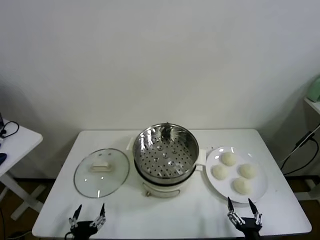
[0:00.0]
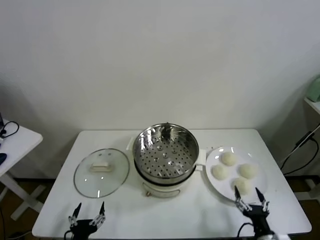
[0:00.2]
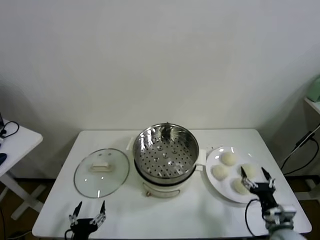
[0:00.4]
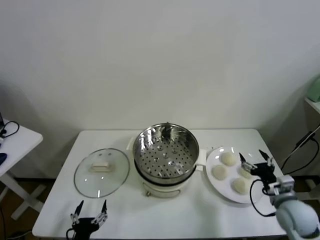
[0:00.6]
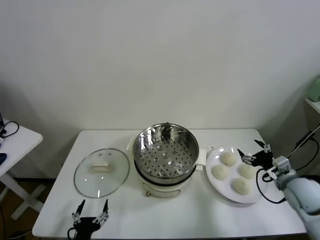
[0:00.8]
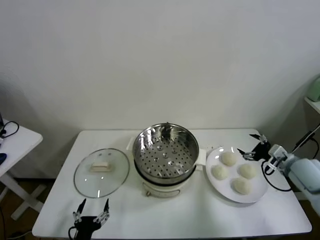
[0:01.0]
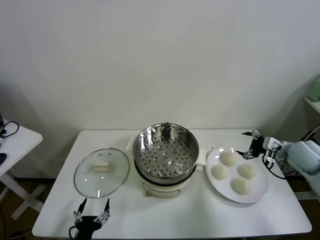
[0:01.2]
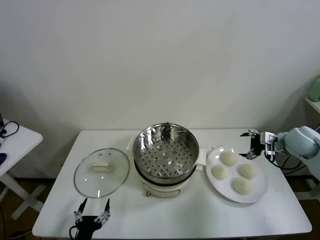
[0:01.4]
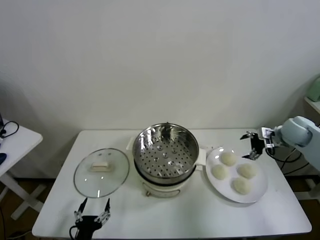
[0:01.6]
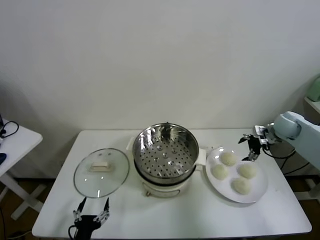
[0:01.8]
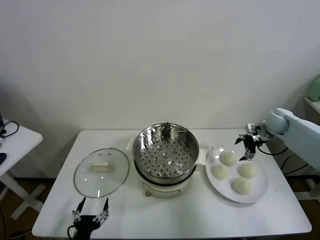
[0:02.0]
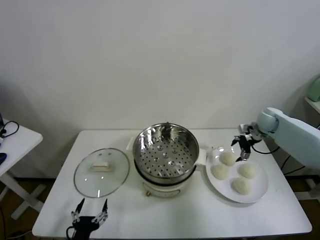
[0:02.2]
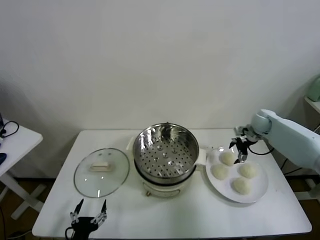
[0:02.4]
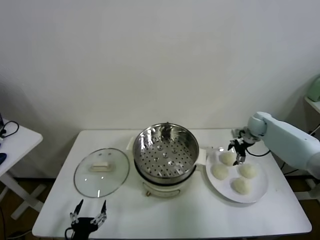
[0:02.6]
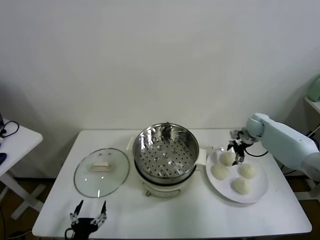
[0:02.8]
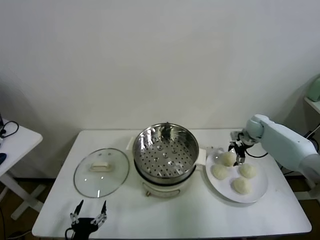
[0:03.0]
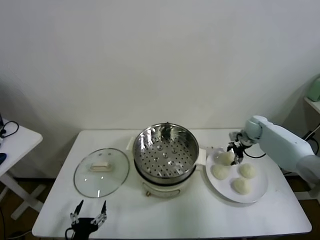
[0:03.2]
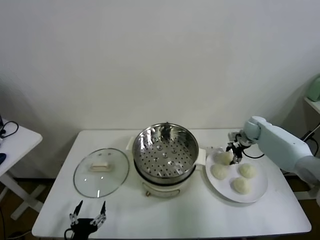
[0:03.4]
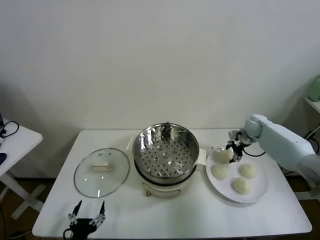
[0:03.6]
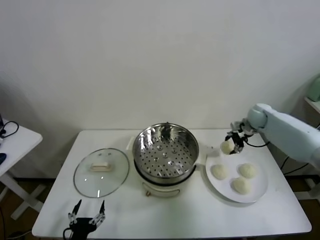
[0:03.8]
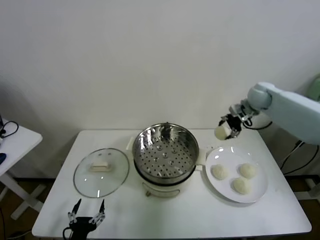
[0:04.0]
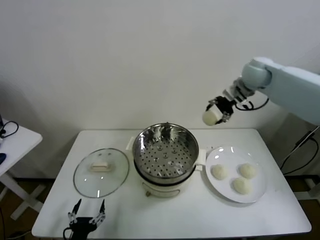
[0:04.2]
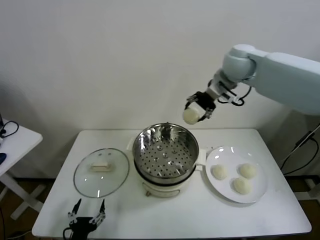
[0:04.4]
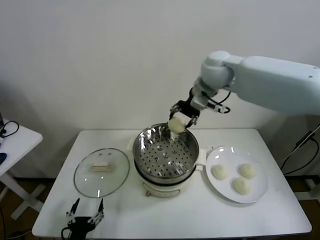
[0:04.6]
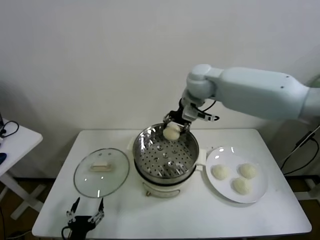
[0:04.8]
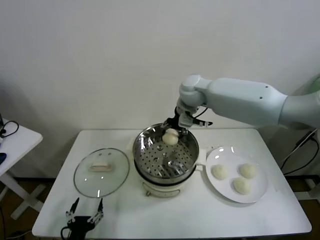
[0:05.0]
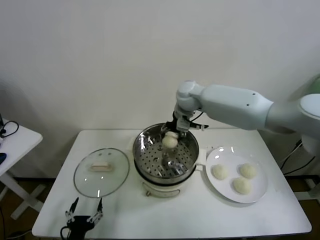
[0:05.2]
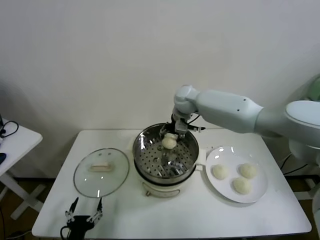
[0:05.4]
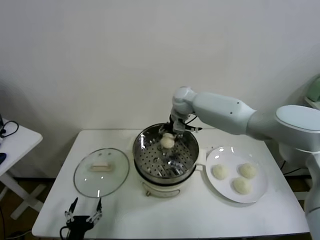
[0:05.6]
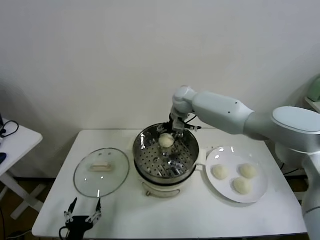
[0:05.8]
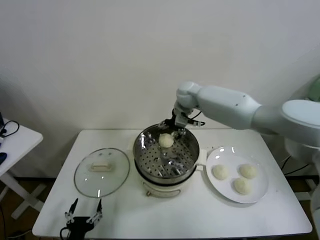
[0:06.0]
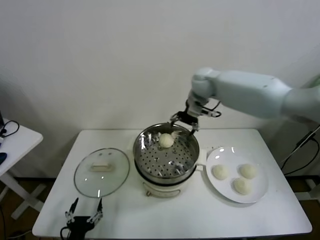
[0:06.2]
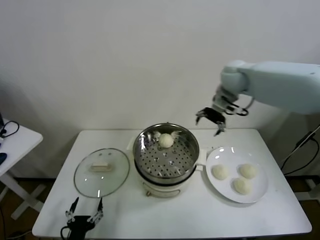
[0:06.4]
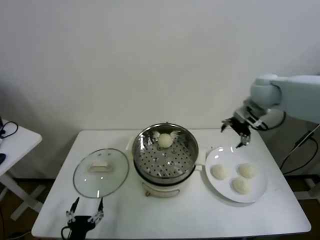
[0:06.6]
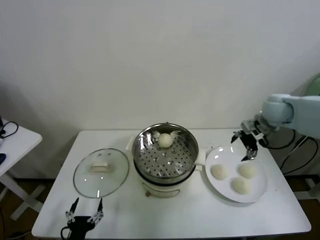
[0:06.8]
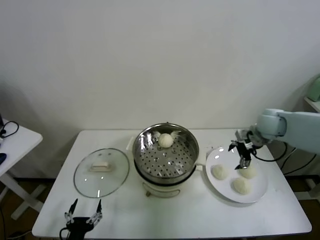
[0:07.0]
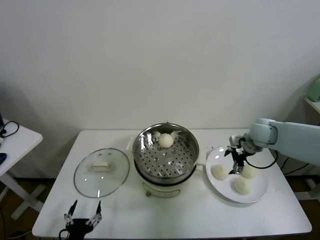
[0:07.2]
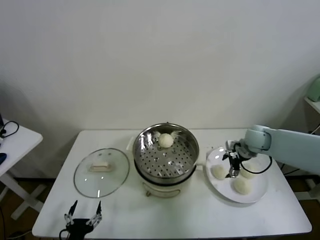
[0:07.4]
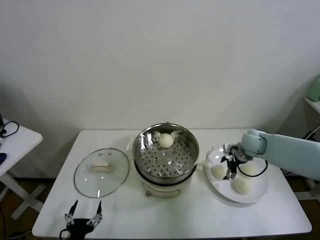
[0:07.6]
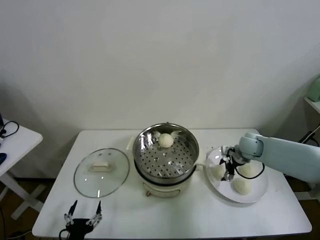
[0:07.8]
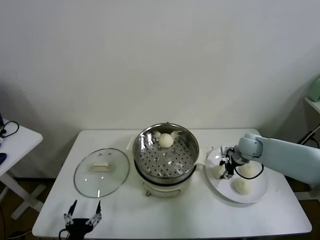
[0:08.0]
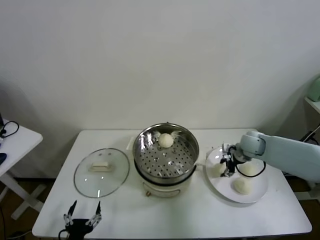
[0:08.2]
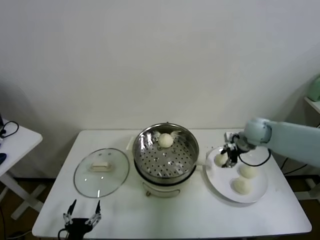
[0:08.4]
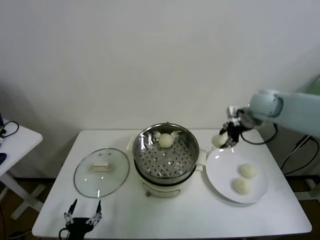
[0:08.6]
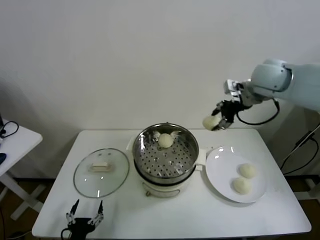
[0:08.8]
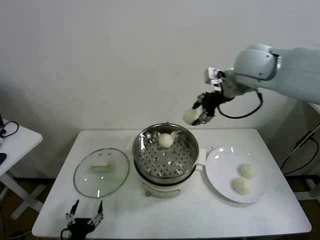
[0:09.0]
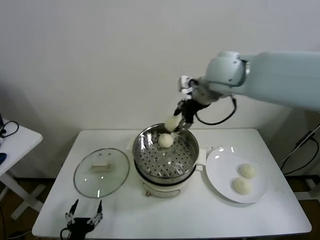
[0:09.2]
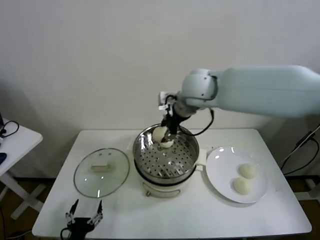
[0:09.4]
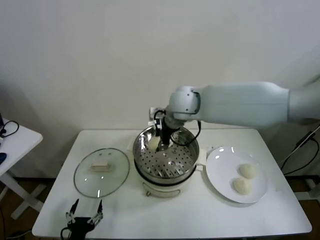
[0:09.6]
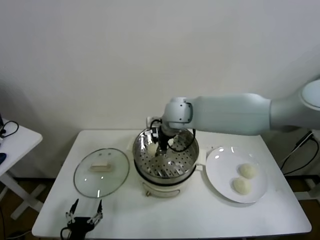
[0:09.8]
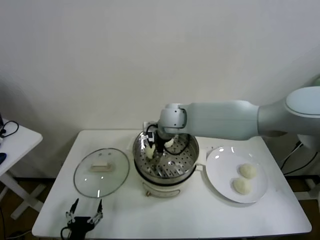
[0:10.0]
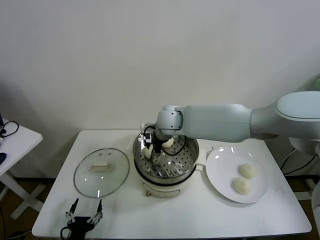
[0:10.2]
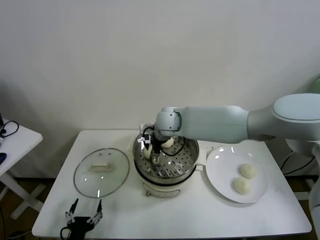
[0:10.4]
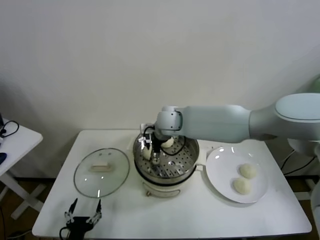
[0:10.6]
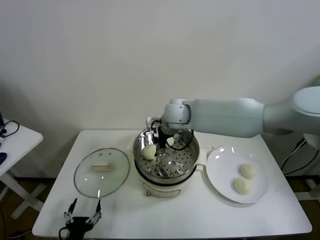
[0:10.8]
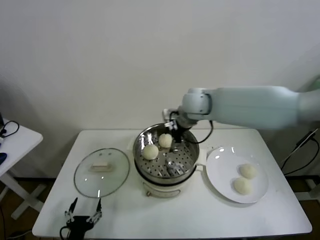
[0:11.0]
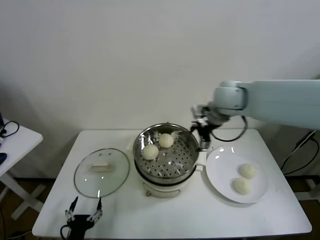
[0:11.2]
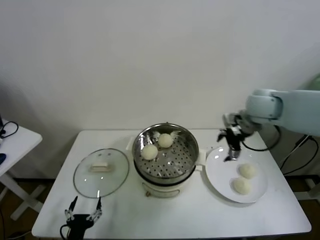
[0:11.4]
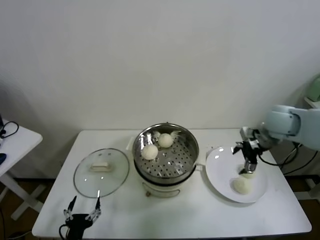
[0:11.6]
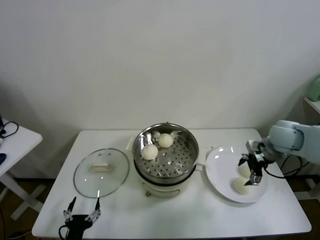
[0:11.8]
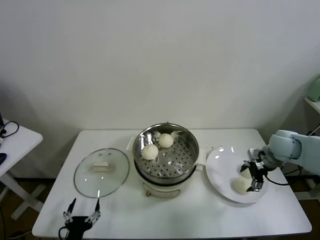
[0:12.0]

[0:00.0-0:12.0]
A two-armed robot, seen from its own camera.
Task of the whole recording: take steamed baozi put them in steamer.
Step, 0:00.0 to 0:03.4: Grasp the baozi in the plate with right gripper.
Step, 0:03.6 to 0:06.0: Place the baozi on the steamer with right gripper.
Step, 0:06.2 to 0:08.0: Grasp the baozi in the plate with right gripper.
Step, 0:08.2 to 0:10.6: Place the baozi on the steamer with right gripper.
0:01.6 to 0:03.0: The right gripper is displaced forward, downward and to the left by some 15 cm.
0:03.0 to 0:04.4: The right gripper shifts some 35 cm upward and to the left, and closes its fingers.
0:04.4 to 0:06.0: The right gripper heads downward, to the left and forward, covering some 15 cm, and opens up.
0:06.0 to 0:07.6: The right gripper is displaced to the right, downward and backward by approximately 30 cm.
0:07.6 to 0:09.0: The right gripper goes about 35 cm upward and to the left, and closes its fingers.
0:09.0 to 0:10.4: The right gripper shifts approximately 25 cm downward and to the left.
0:10.4 to 0:12.0: The right gripper goes some 40 cm to the right, and opens.

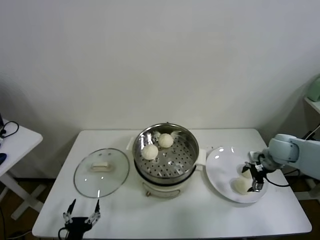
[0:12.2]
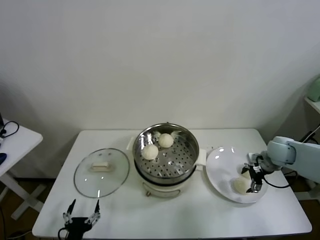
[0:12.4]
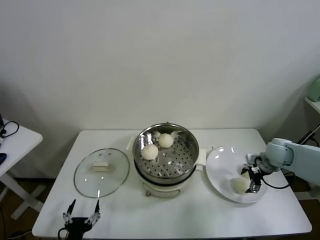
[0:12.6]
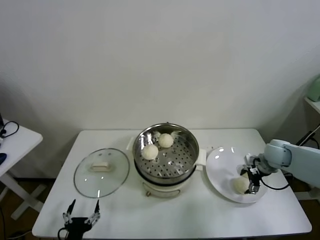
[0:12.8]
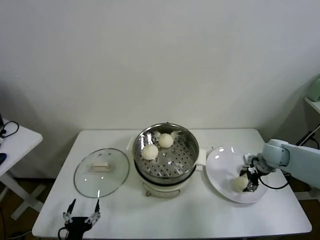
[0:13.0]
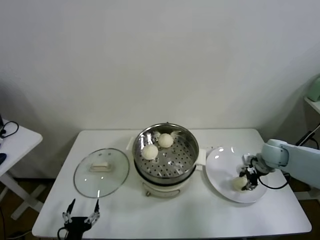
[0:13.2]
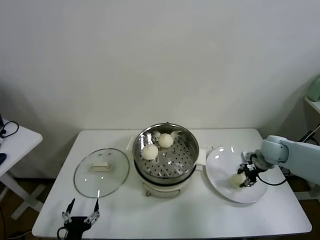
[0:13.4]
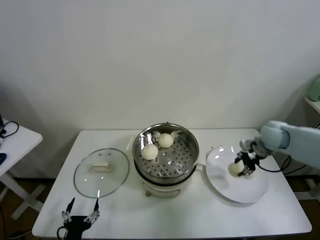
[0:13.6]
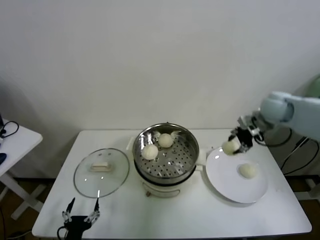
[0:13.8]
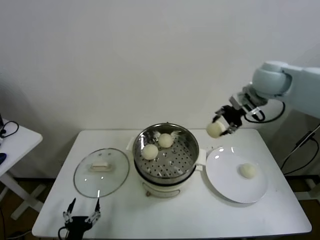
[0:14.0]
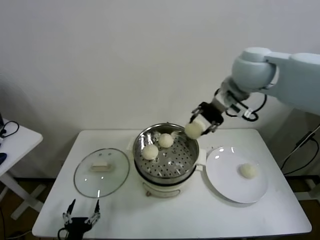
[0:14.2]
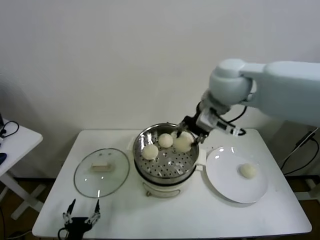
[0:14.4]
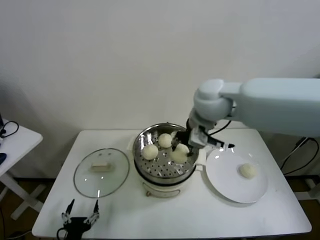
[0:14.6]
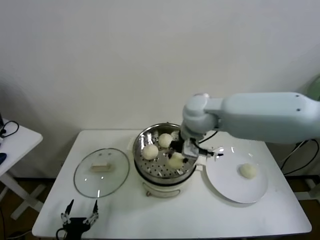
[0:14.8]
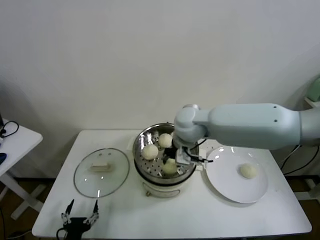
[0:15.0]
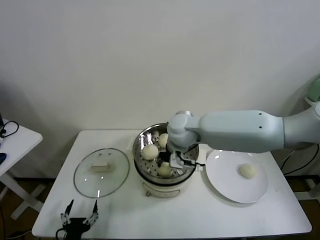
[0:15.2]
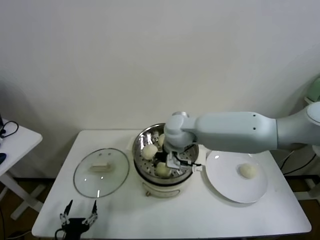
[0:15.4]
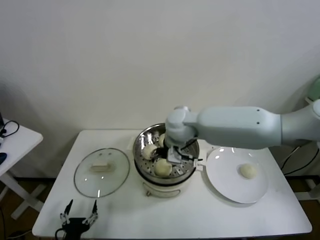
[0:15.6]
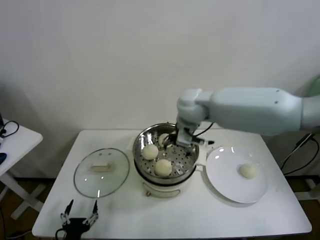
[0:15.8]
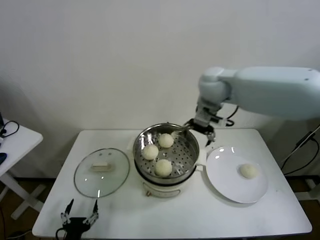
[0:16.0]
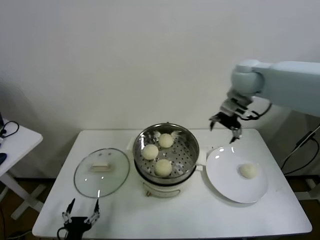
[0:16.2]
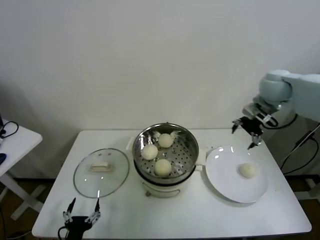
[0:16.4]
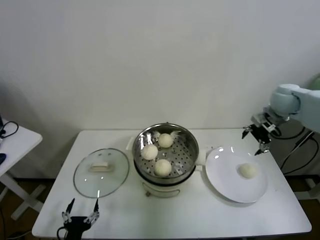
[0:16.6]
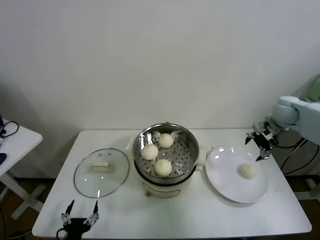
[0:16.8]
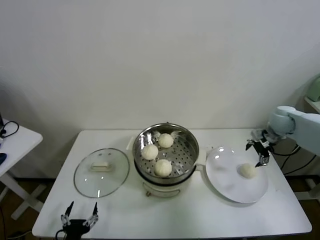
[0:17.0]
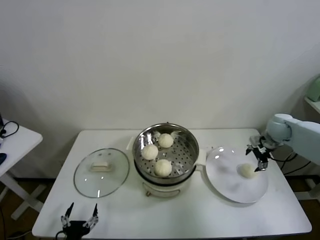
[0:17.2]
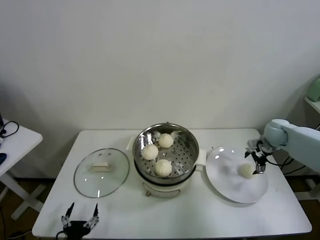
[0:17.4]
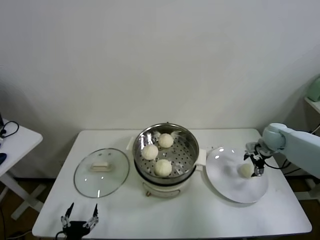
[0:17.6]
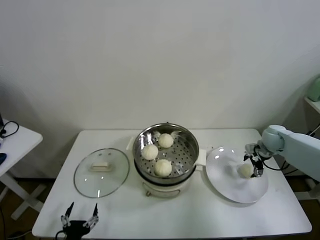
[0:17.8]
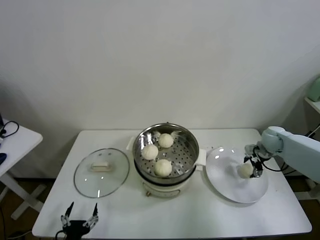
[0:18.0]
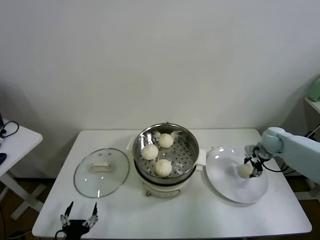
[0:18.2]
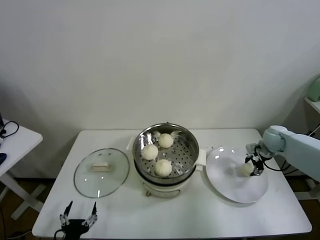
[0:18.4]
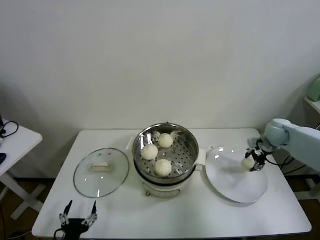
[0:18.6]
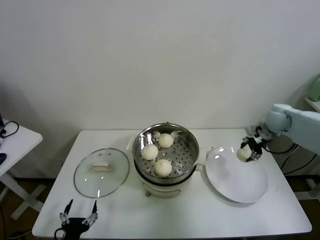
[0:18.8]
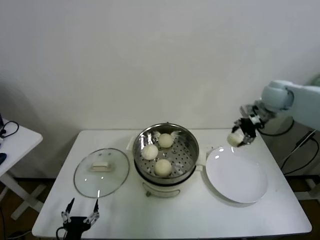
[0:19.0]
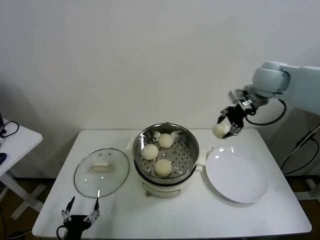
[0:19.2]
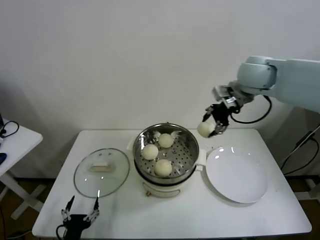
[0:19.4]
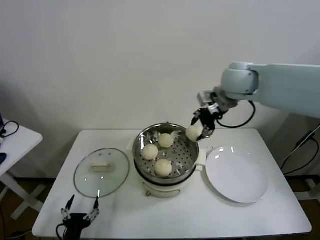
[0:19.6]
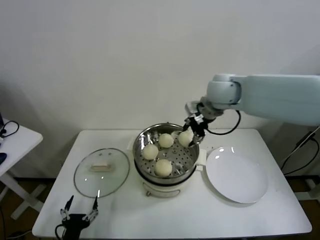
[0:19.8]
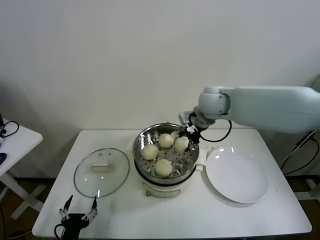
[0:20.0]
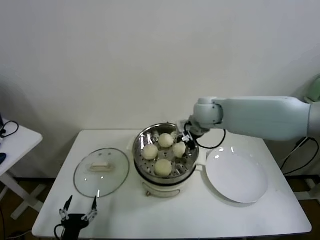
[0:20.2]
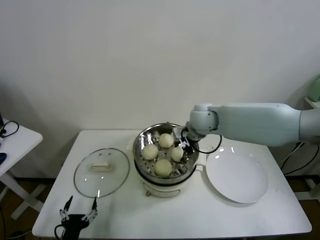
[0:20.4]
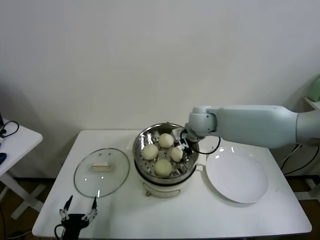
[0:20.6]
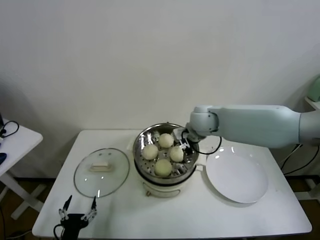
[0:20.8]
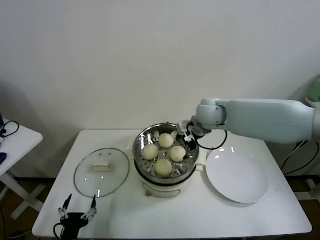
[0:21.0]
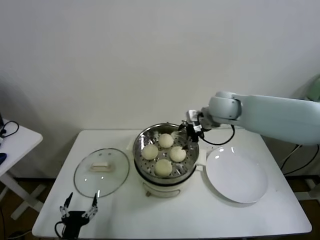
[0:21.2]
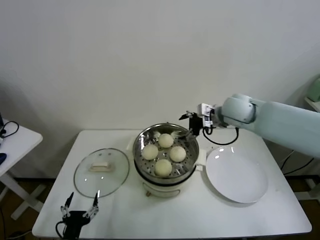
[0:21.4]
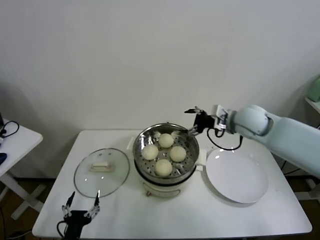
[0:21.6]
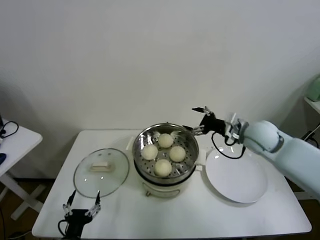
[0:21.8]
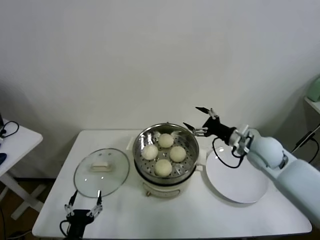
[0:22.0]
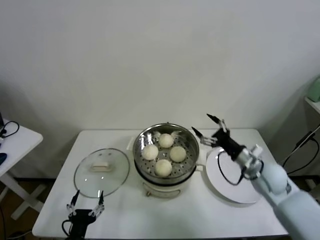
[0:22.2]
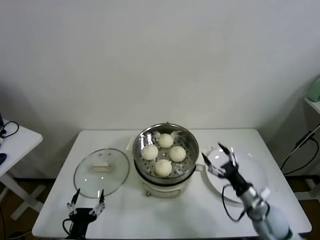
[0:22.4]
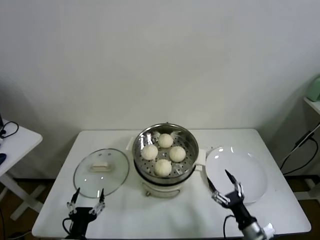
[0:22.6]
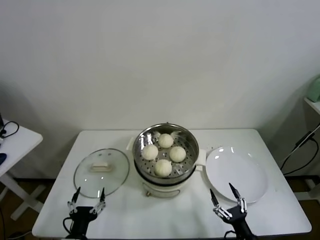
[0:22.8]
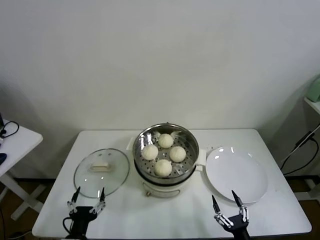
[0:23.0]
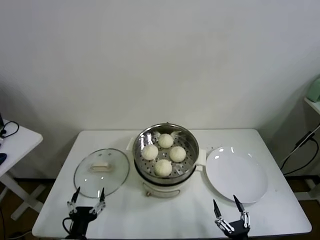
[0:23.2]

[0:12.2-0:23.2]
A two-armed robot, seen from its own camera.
Task of the whole recording: take steamed baozi put them in steamer.
Step, 0:13.2 to 0:15.6: Place the baozi on the steamer with right gripper.
Step, 0:15.8 to 0:18.2: Grasp the baozi in the plate with right gripper.
Step, 0:18.4 to 0:20.8: Place the baozi on the steamer with right gripper.
0:12.2 to 0:13.8: The right gripper shifts about 15 cm upward and to the left, and closes.
0:13.8 to 0:15.4: The right gripper heads to the left, covering roughly 30 cm.
0:15.4 to 0:17.0: The right gripper heads to the right, covering some 40 cm, and opens.
0:17.0 to 0:18.4: The right gripper travels downward by approximately 10 cm, and closes.
0:18.4 to 0:20.0: The right gripper travels to the left and upward by roughly 35 cm.
0:20.0 to 0:21.6: The right gripper shifts about 10 cm to the right and downward, and opens up.
0:21.6 to 0:23.2: The right gripper goes some 50 cm backward and downward.
